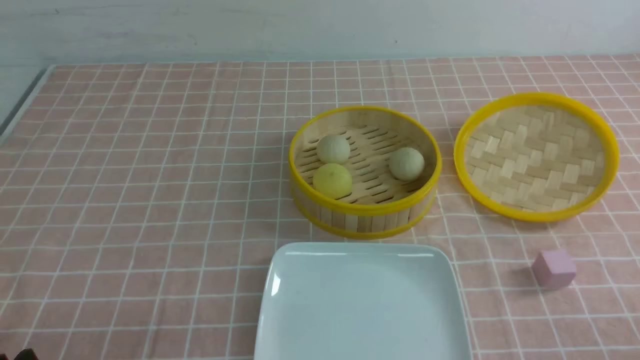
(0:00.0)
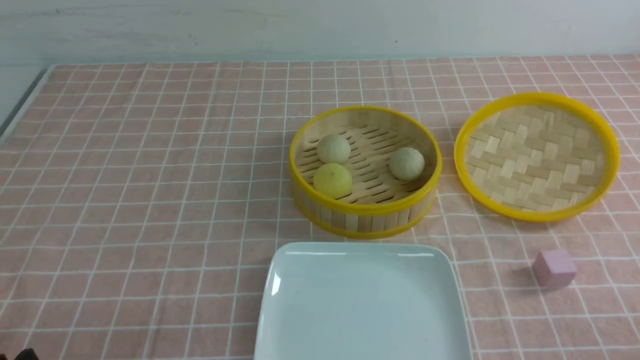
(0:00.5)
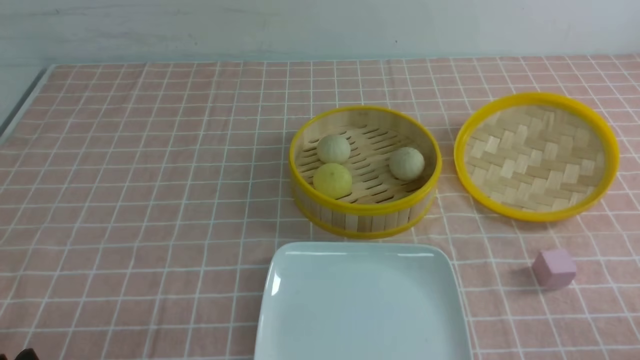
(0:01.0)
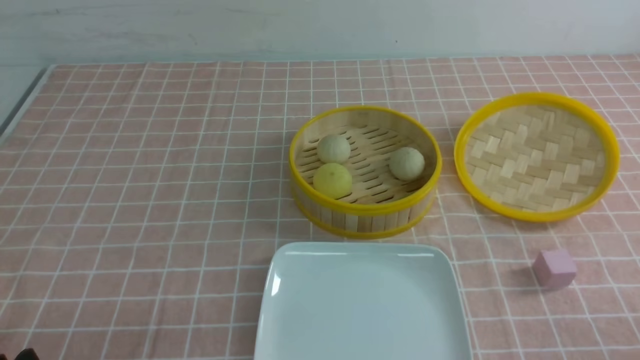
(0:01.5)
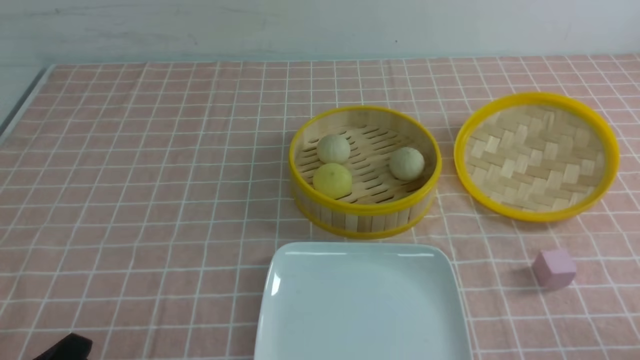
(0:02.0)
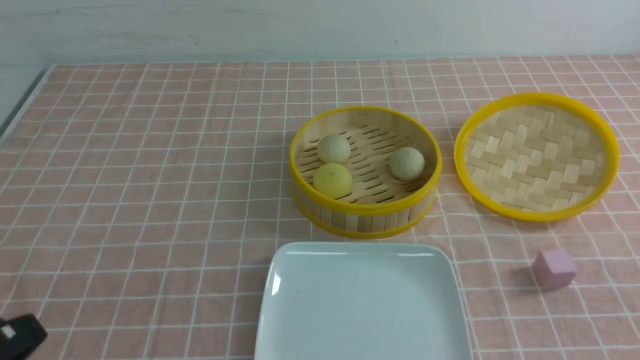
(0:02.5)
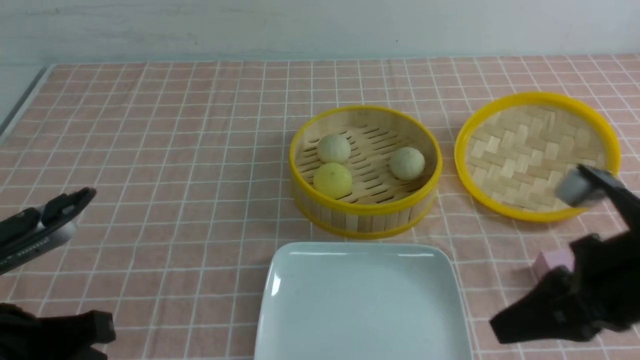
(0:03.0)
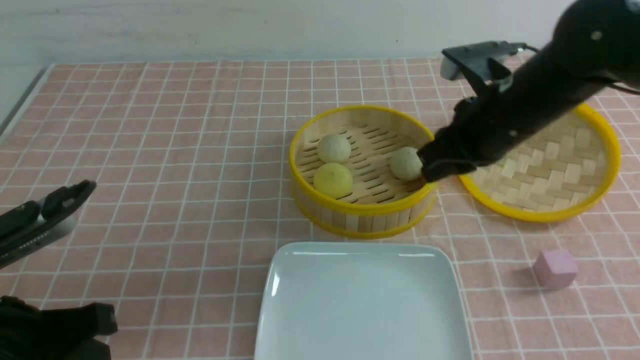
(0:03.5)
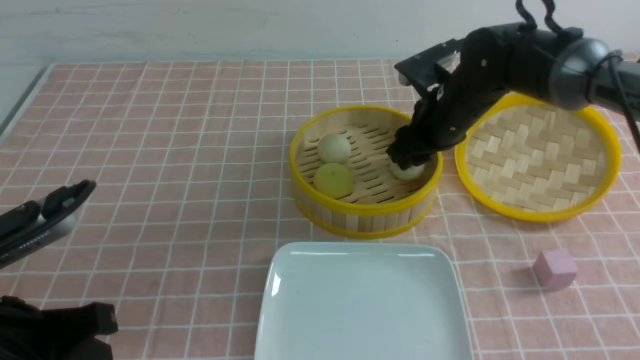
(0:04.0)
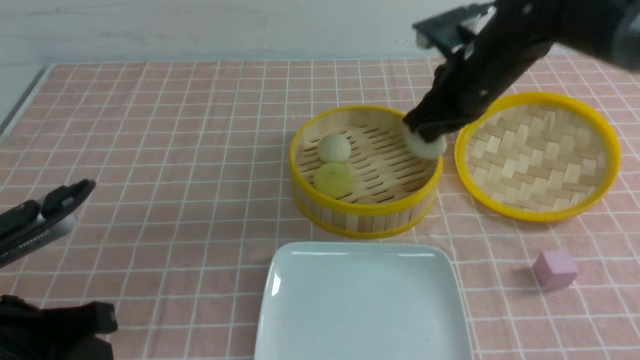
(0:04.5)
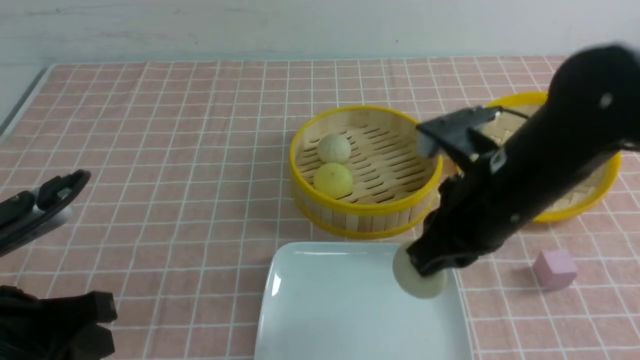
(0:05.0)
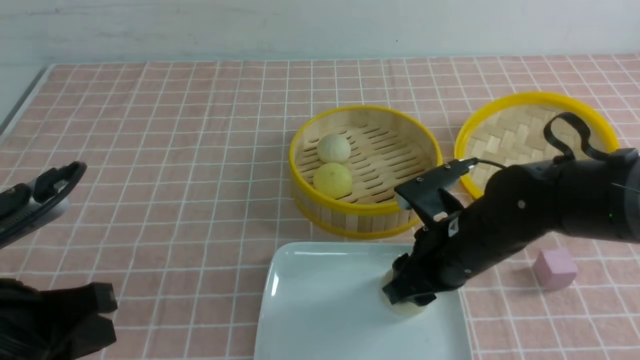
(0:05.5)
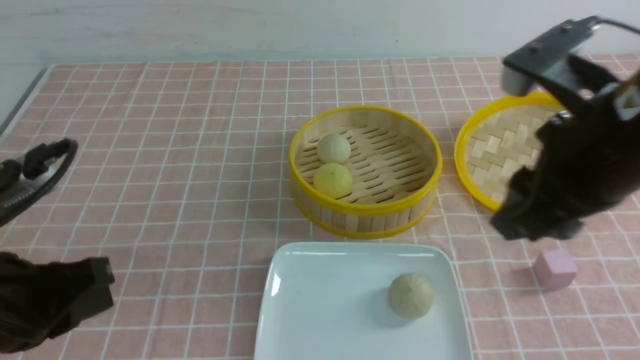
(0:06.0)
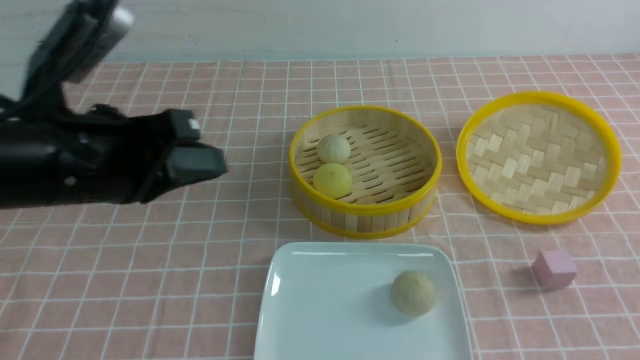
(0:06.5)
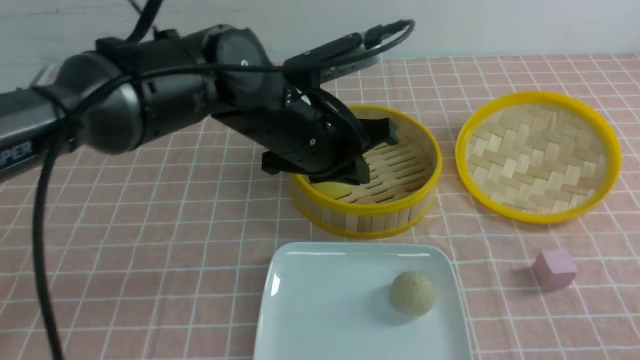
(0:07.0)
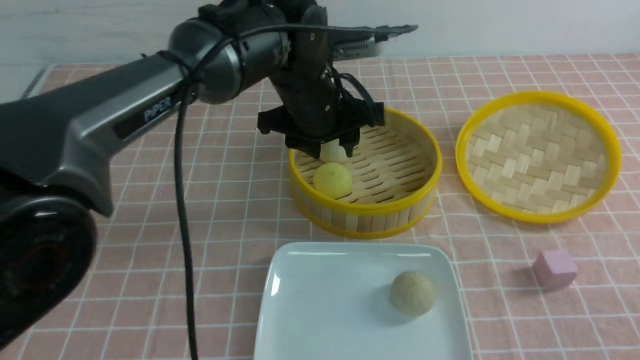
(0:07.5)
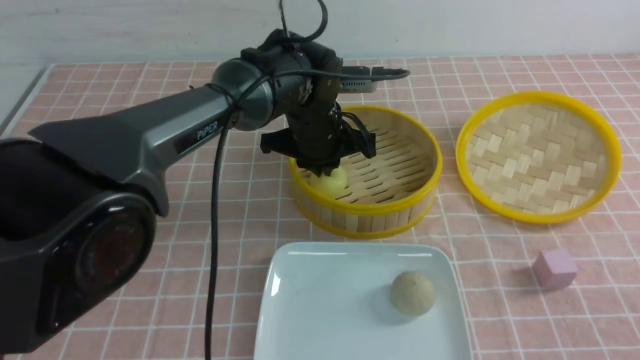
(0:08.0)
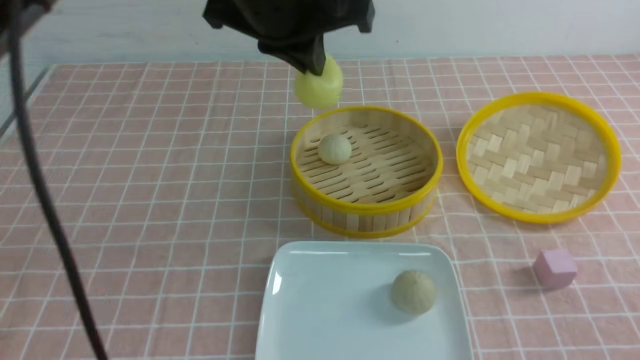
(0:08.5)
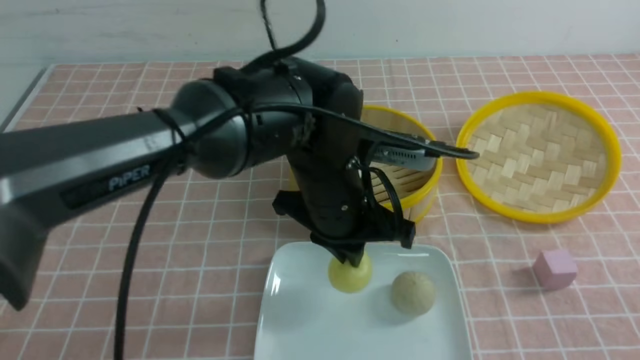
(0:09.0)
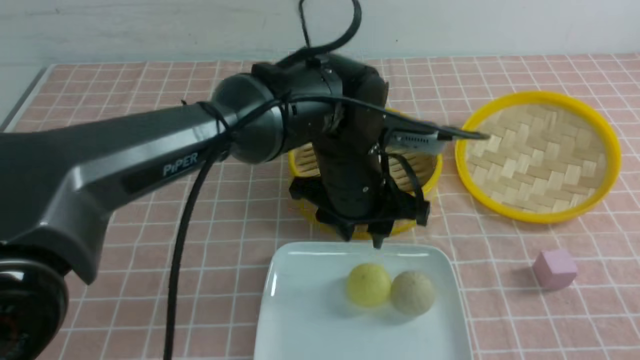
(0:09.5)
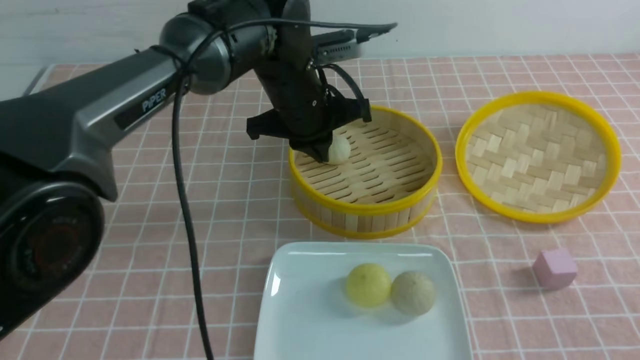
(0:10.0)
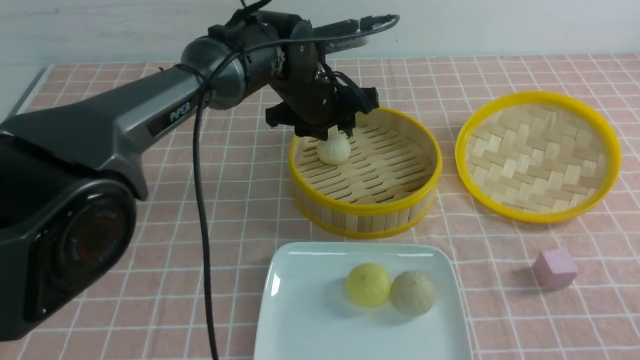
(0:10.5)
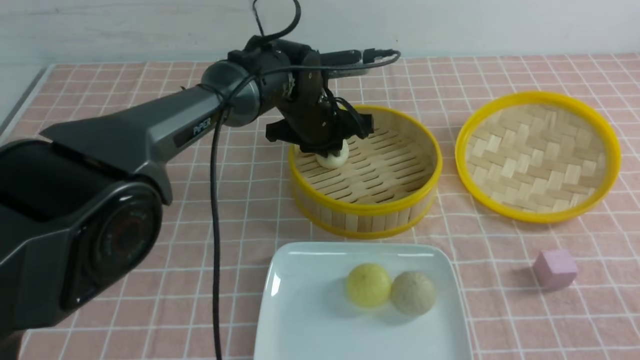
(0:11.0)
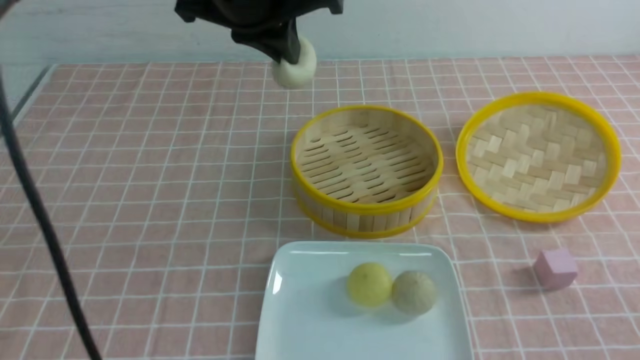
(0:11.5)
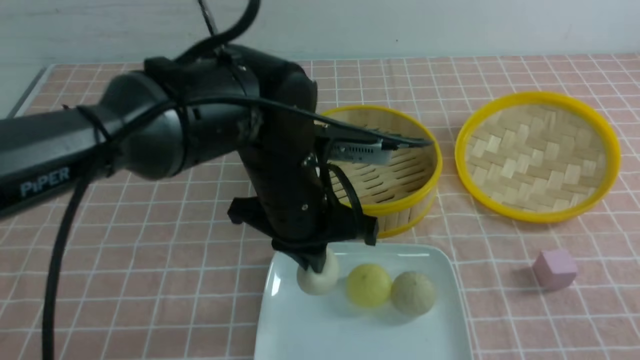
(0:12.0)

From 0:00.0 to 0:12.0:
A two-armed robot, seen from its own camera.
Step, from 0:00.0 to 0:04.0: use the right arm to grab the steamed stuffed bun that is closest to it.
Step, from 0:04.5 to 0:05.5: use the right arm to put the steamed stuffed bun into the plate.
Step, from 0:06.0 to 0:08.0: use the left arm to grab the steamed stuffed bun that is closest to it.
Step, from 0:08.5 to 0:09.0: use the left arm to put the steamed stuffed bun into the plate.
Step, from 0:09.5 to 0:11.0: use the left arm to grab the steamed stuffed bun that is closest to it.
From 0:02.0 to 0:04.0: The left gripper moves upward and forward, roughly 10 cm, and closes up. The right gripper is displaced forward and to the left by some 40 cm, and closes, then opens again.
From 0:04.0 to 0:06.0: The right gripper moves backward and upward, about 25 cm, and closes and opens again.
From 0:06.0 to 0:08.0: The right gripper shifts about 20 cm backward, to the right and downward, and closes up. The left gripper heads forward and to the right, covering roughly 35 cm, and opens and closes again.
From 0:08.0 to 0:10.0: The left gripper moves about 15 cm upward and comes back, and opens, then closes once more.
From 0:10.0 to 0:12.0: The left gripper goes approximately 10 cm backward, and opens, then closes once more.

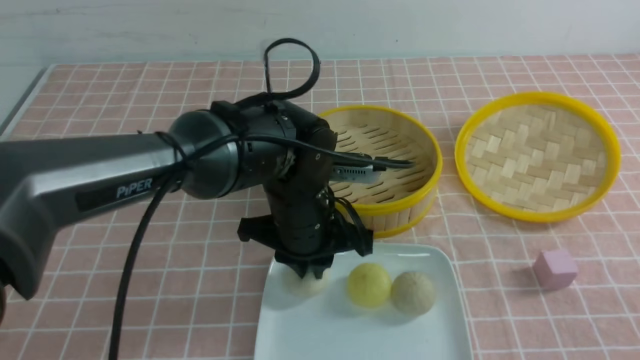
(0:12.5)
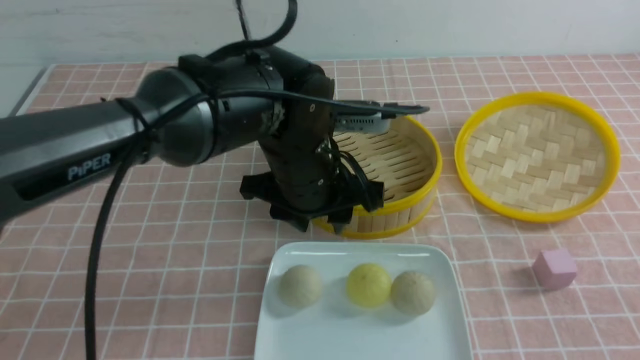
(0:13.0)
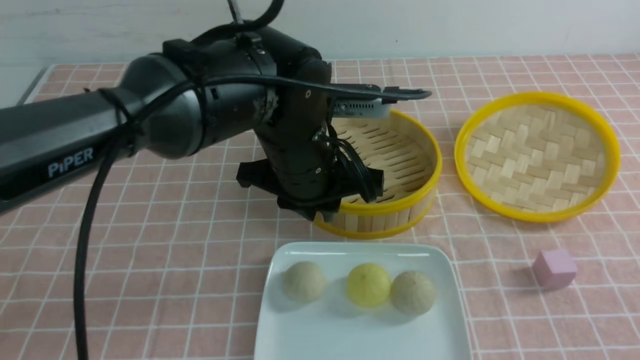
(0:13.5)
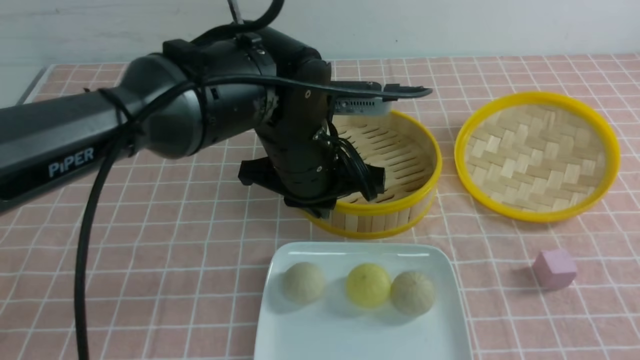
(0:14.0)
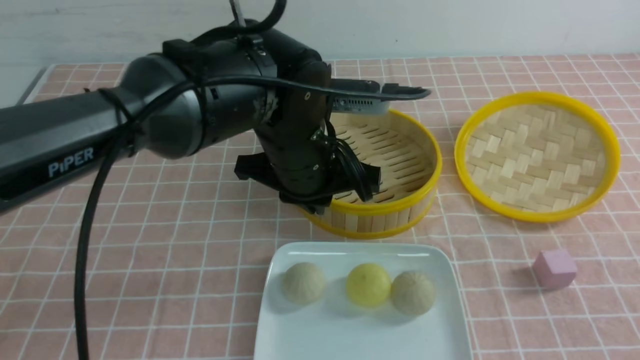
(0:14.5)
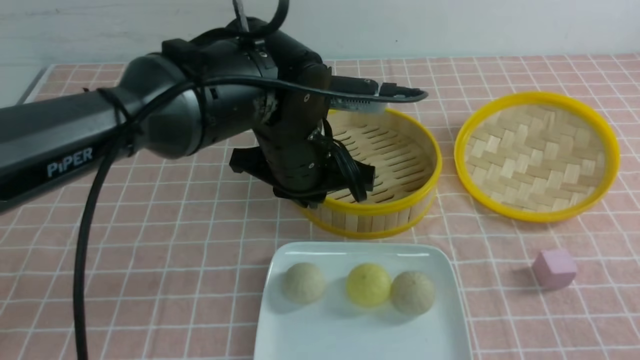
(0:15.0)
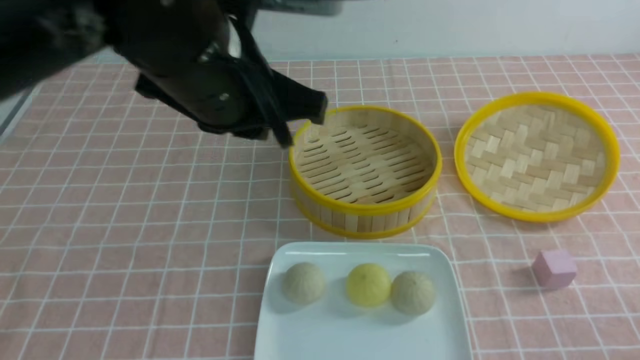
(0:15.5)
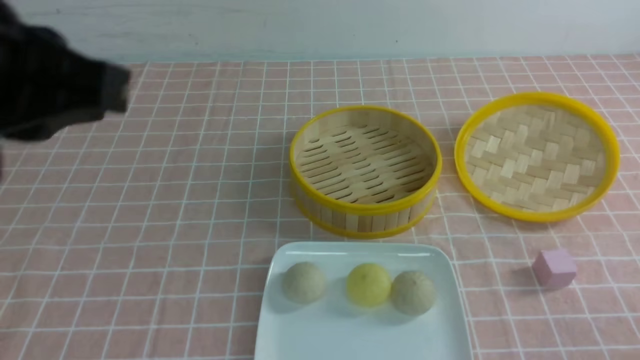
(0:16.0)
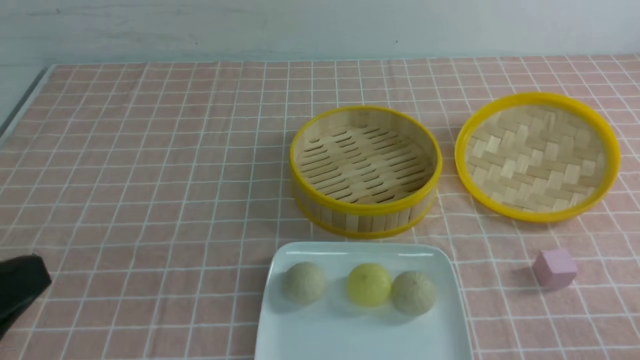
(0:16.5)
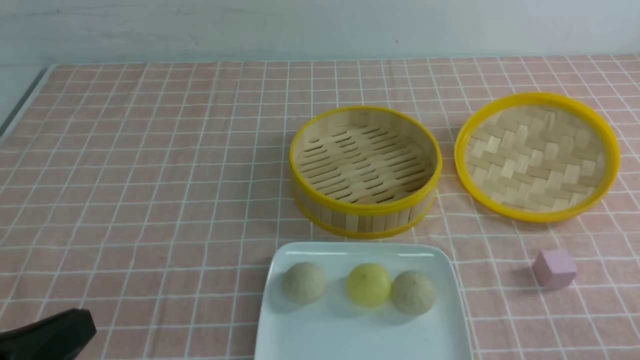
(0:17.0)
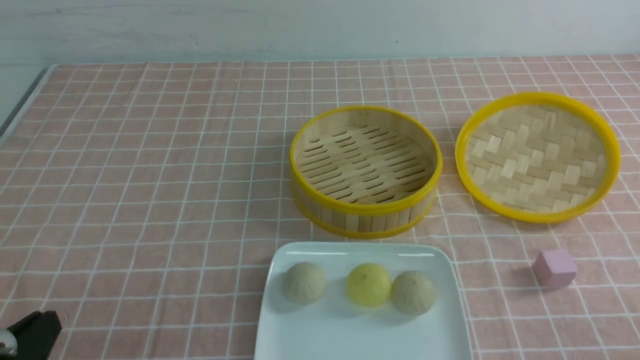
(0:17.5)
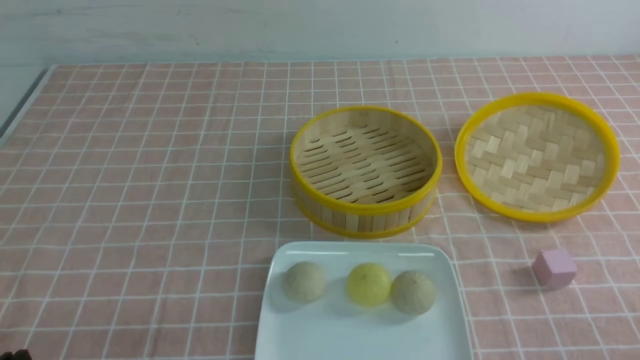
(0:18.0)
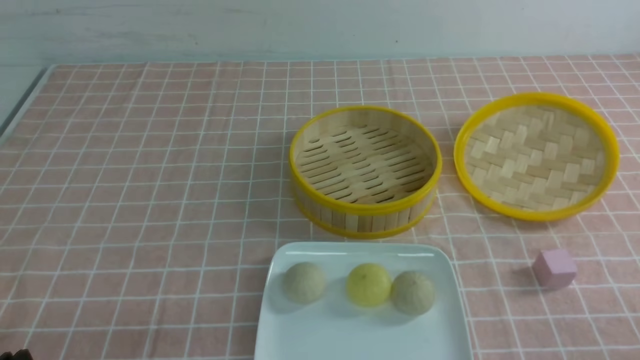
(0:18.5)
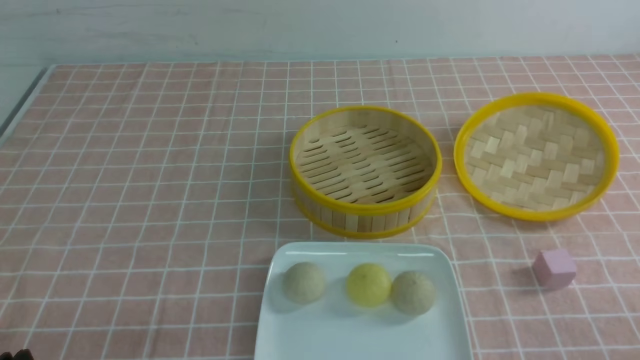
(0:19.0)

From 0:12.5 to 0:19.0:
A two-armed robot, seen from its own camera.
From 0:12.5 to 0:14.5: The right gripper closes its fingers. The left gripper moves upward, about 5 cm, and closes up.
From 0:14.5 to 0:17.0: The left gripper goes some 35 cm backward and to the left. The right gripper goes roughly 10 cm downward.
From 0:17.0 to 0:19.0: The left gripper travels downward by some 10 cm.

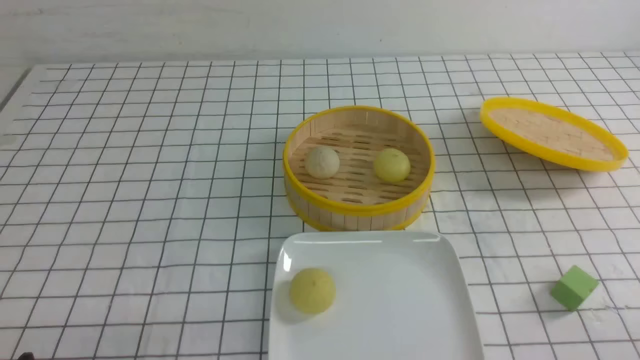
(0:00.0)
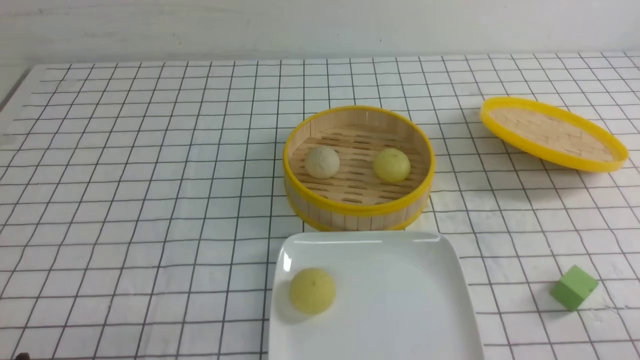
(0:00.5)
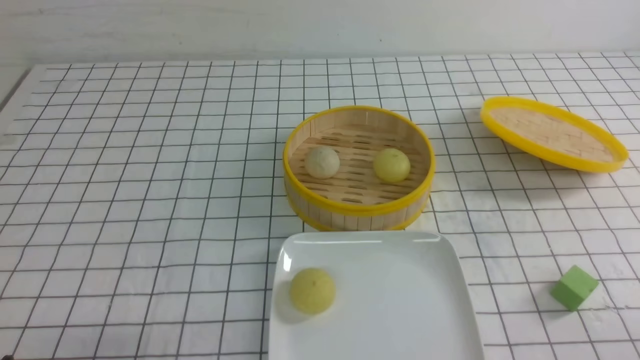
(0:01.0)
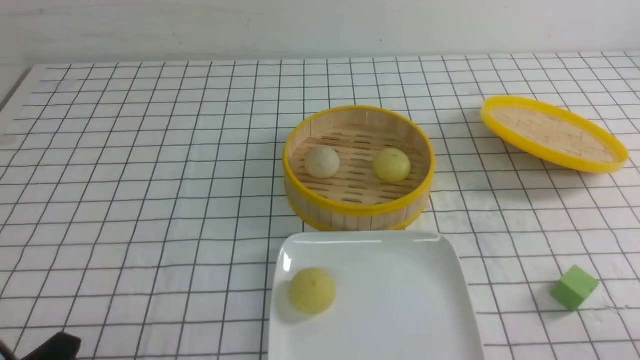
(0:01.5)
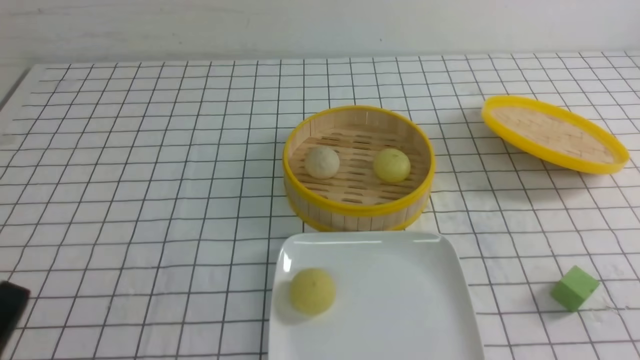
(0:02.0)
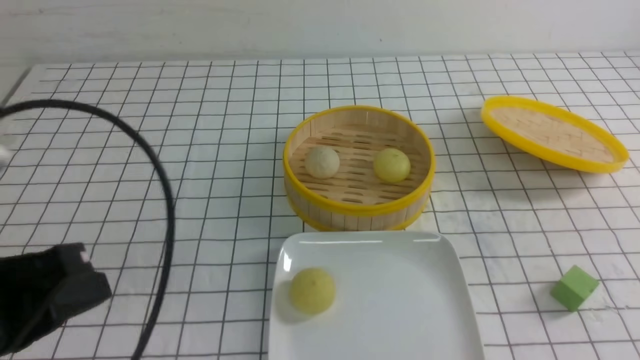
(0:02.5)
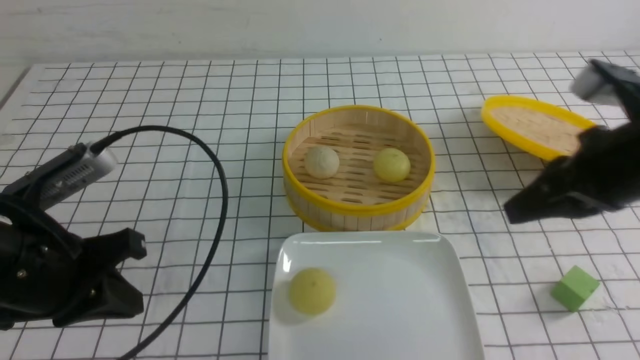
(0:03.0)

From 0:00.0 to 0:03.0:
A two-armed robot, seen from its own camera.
From 0:01.5 to 0:03.0: The right gripper moves forward and upward, roughly 25 cm, and closes up; the left gripper travels forward and upward by some 15 cm, and closes up.
